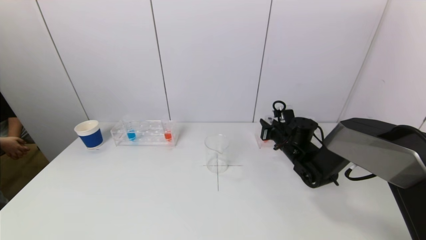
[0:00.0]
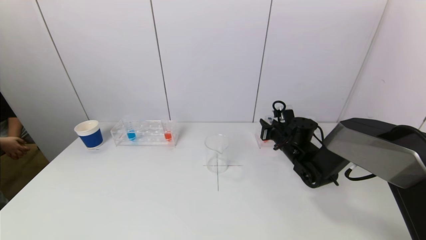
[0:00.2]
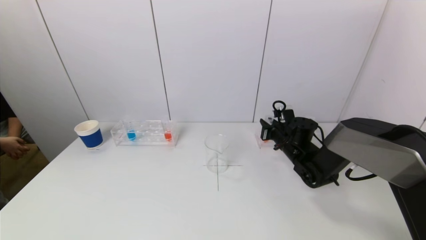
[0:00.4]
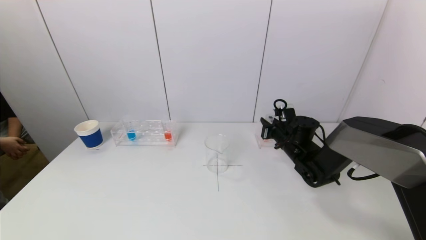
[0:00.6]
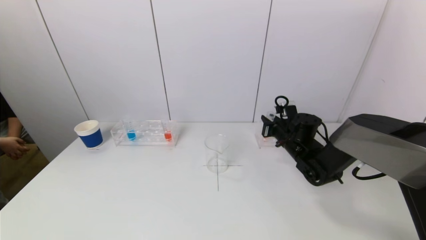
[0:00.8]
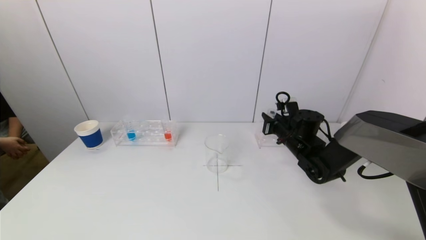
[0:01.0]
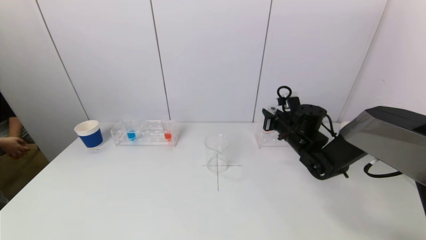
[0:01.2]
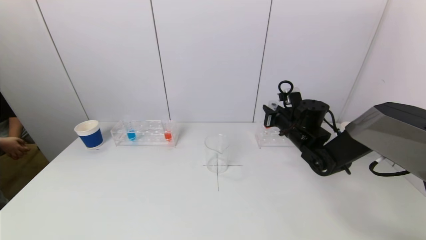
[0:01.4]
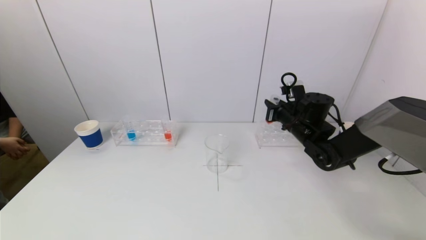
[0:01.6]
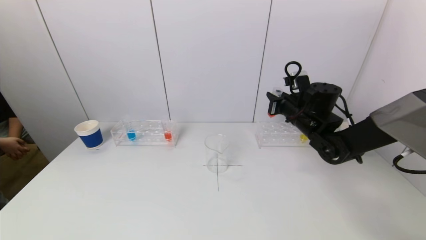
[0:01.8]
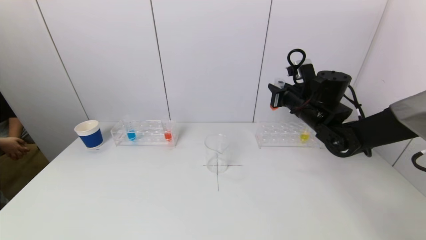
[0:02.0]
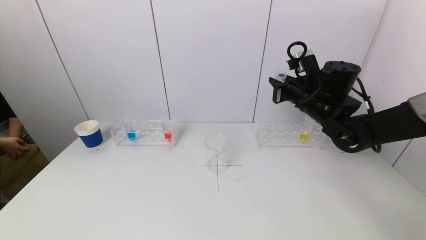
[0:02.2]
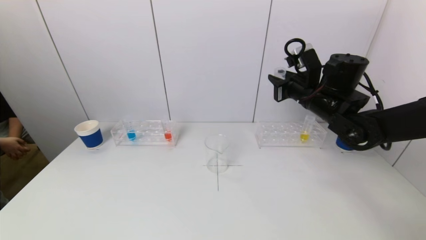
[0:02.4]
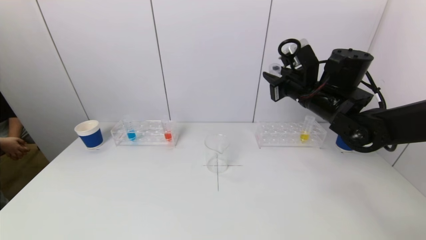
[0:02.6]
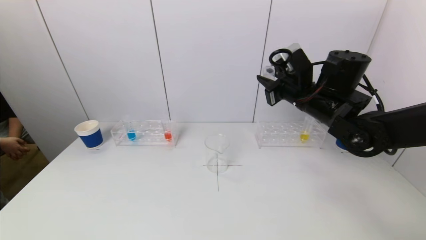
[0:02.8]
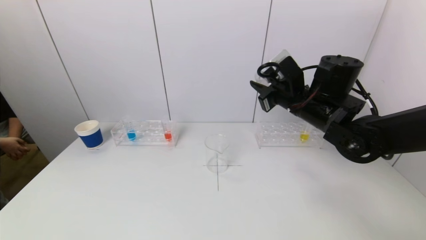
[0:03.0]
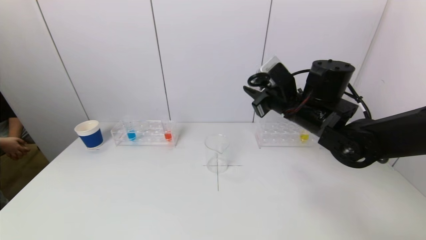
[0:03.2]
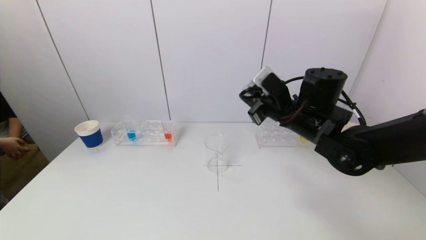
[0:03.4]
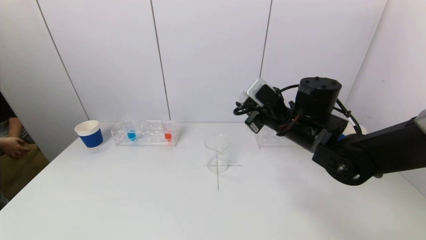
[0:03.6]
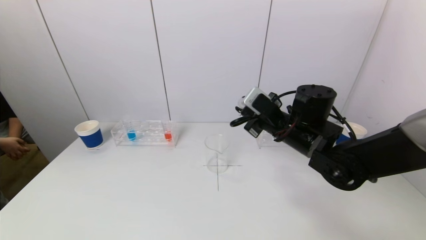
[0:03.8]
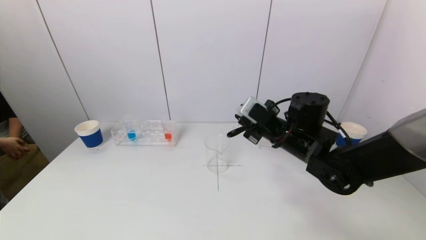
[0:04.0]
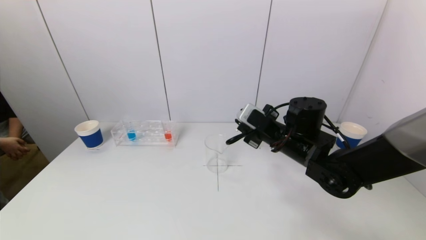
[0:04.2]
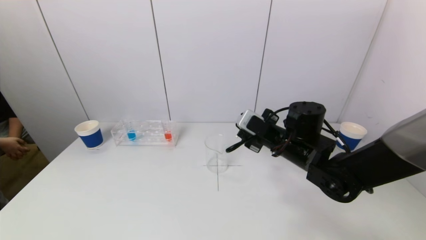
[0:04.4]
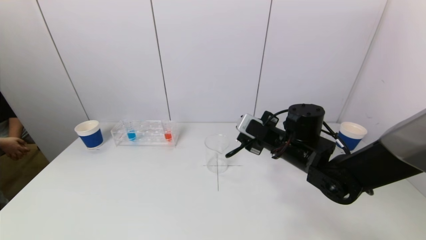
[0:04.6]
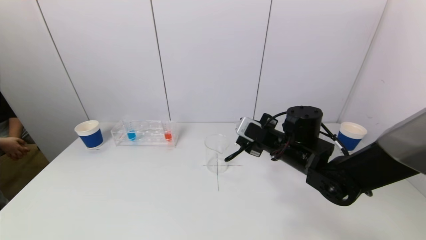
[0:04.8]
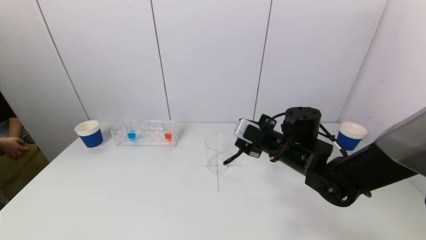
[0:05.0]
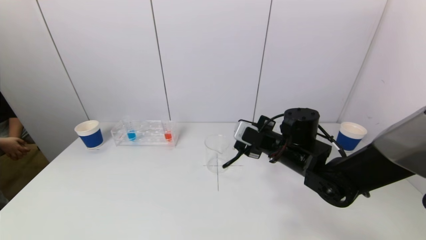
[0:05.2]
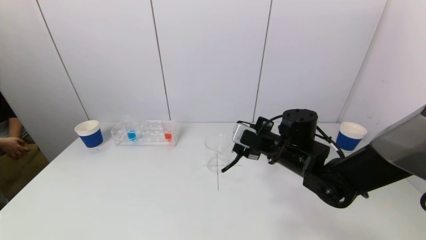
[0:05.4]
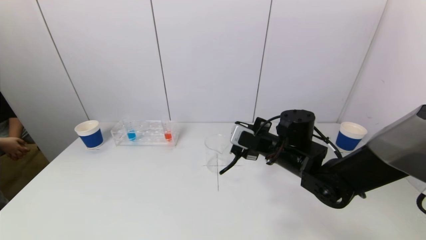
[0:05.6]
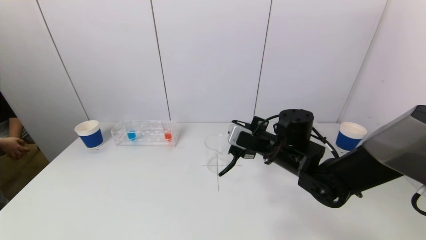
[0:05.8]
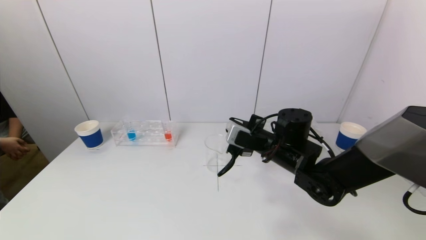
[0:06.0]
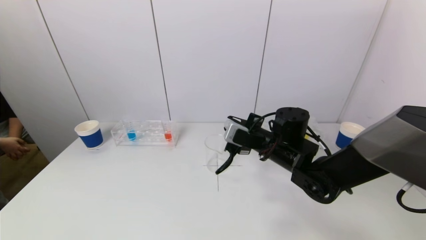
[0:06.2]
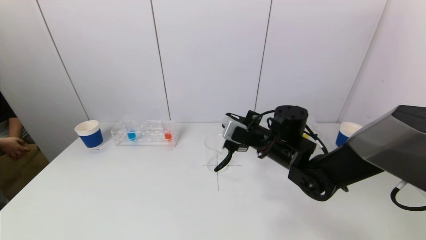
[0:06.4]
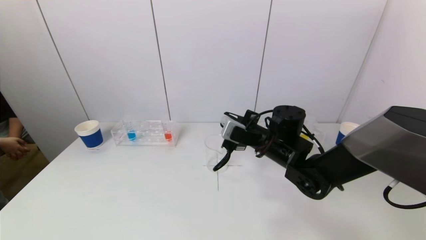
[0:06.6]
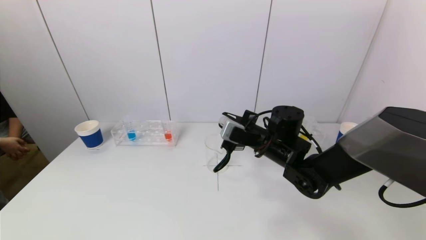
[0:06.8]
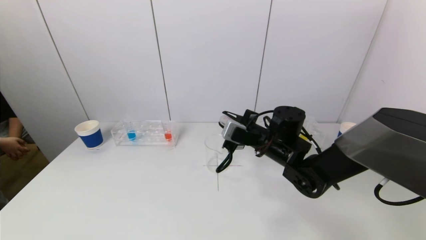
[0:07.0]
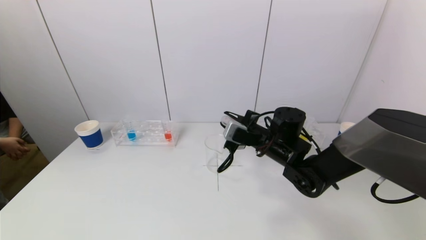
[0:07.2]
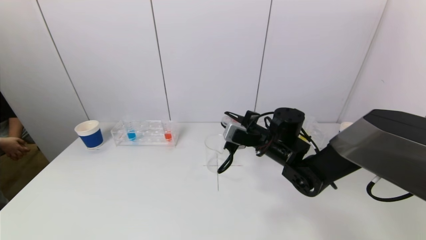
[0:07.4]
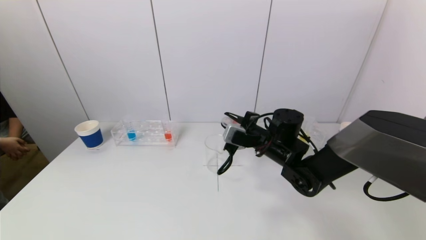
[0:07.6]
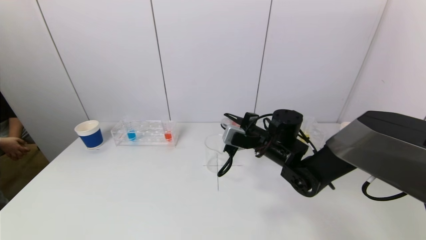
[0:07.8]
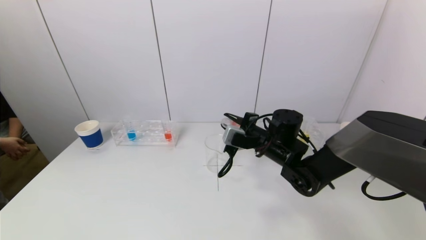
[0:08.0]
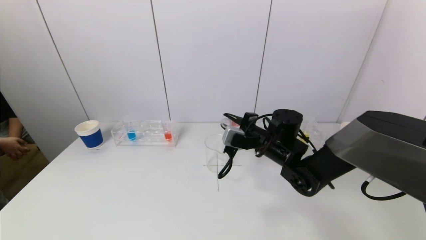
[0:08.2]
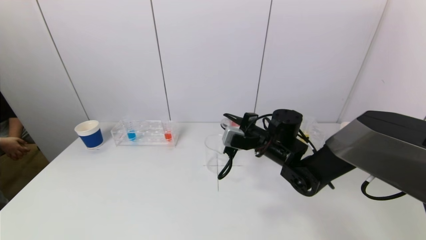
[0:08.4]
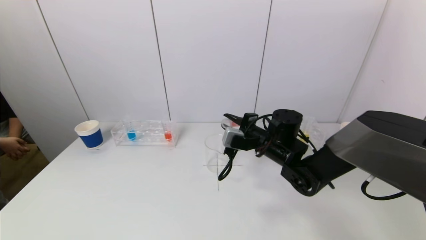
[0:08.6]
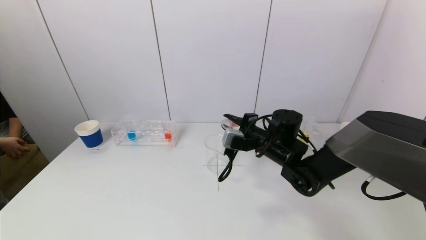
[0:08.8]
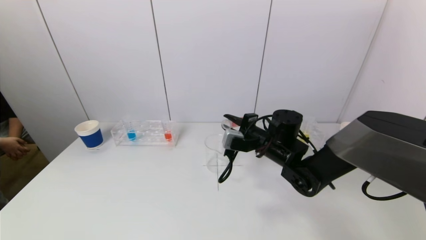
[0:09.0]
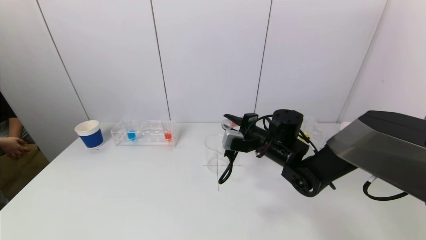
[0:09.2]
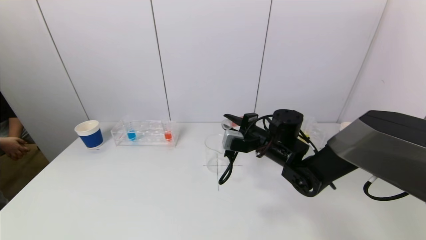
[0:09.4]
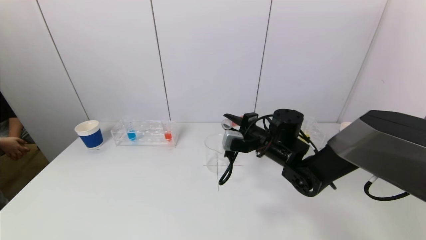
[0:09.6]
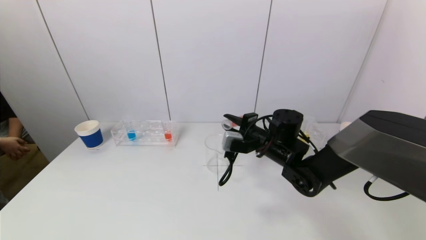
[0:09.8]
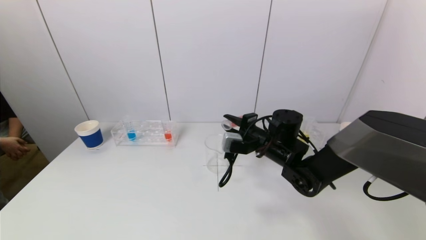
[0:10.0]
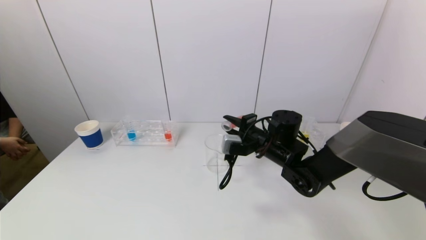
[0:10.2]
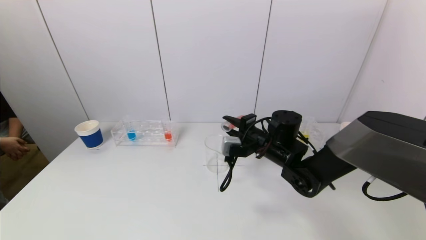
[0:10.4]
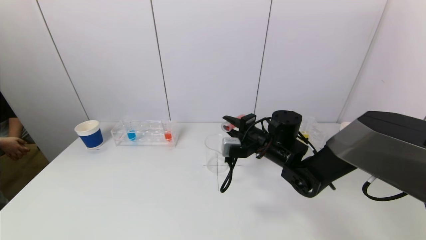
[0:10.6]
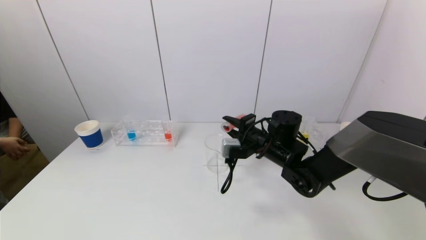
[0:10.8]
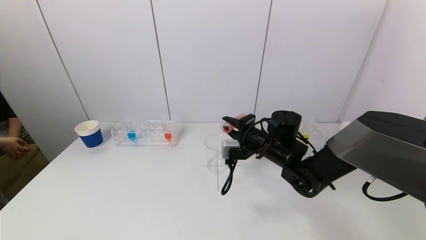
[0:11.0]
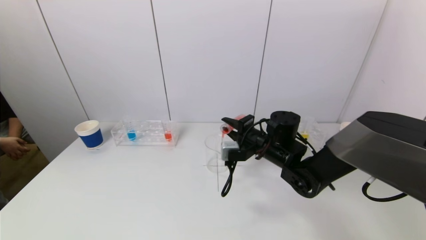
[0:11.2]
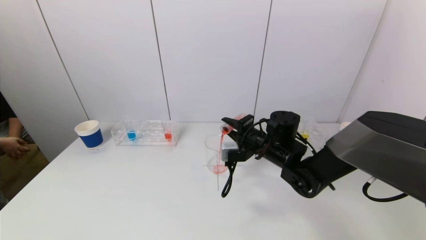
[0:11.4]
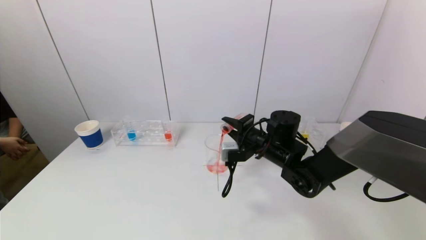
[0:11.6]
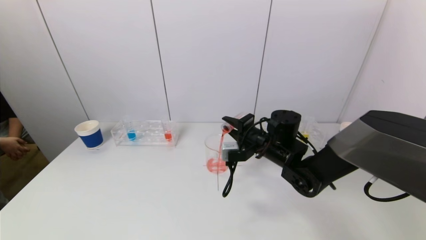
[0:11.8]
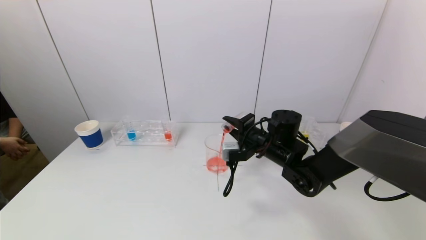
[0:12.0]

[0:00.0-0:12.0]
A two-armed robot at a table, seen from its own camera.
Task of the whole recording: pick up a test tube with pigment on left test tube rack and a test tube with pigment on right test tube rack by grippers and pour them into the beaker.
0:00.0 to 0:01.6: The right gripper heads upward, covering roughly 10 cm.
0:01.6 to 0:03.0: The right gripper shifts some 10 cm upward and backward.
0:03.0 to 0:04.4: The right gripper goes some 10 cm downward.
0:04.4 to 0:07.6: The grippers move only a little.
0:07.6 to 0:10.4: The grippers stay close to where they were, moving slightly.
0:10.4 to 0:12.0: The grippers move only a little.

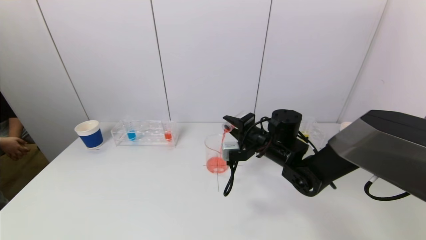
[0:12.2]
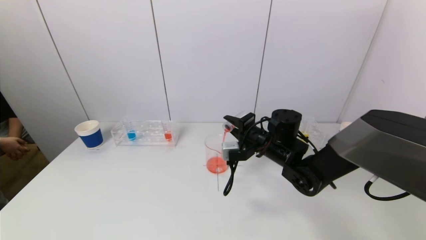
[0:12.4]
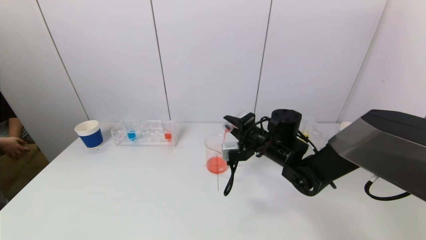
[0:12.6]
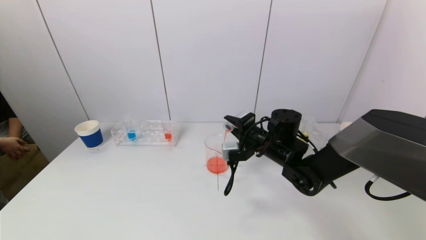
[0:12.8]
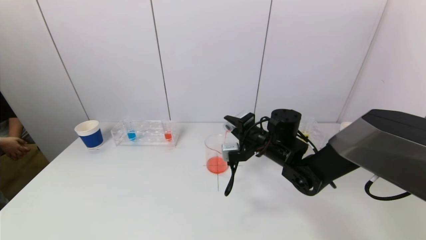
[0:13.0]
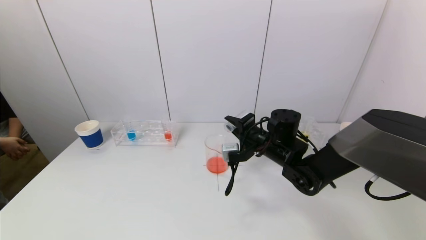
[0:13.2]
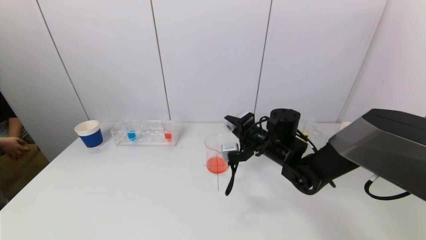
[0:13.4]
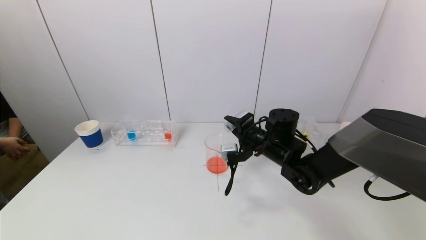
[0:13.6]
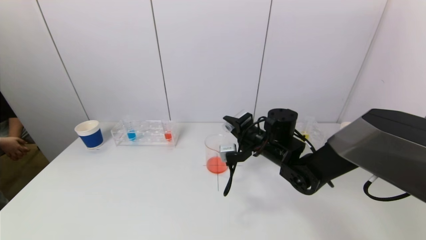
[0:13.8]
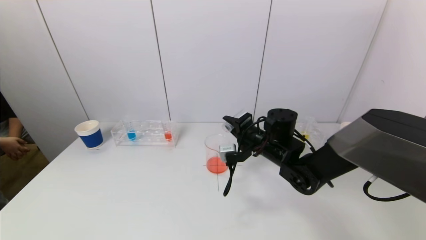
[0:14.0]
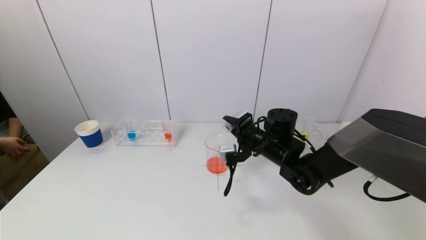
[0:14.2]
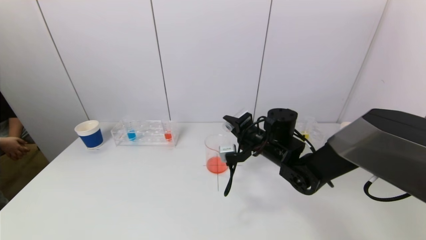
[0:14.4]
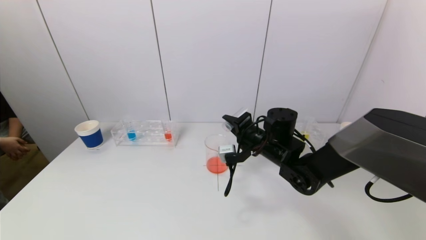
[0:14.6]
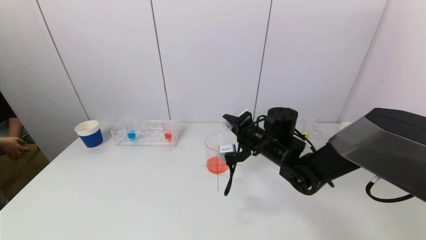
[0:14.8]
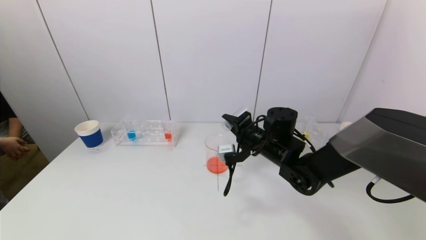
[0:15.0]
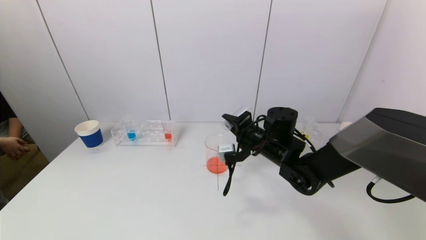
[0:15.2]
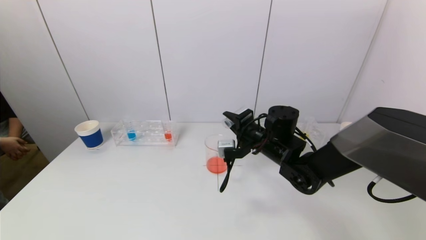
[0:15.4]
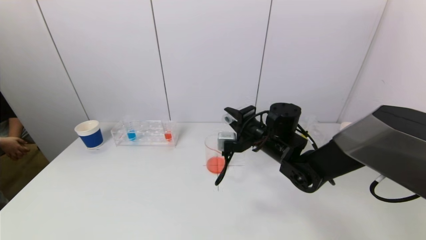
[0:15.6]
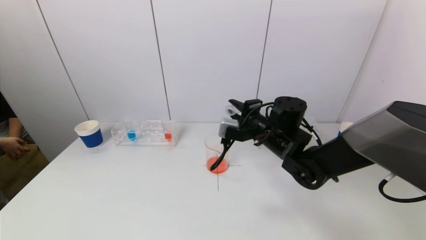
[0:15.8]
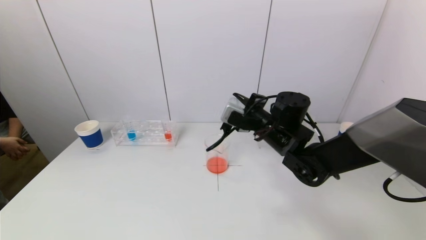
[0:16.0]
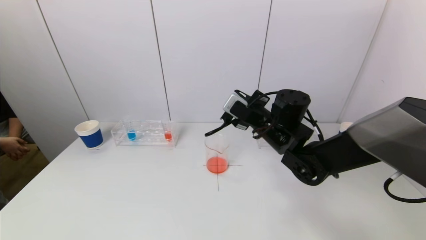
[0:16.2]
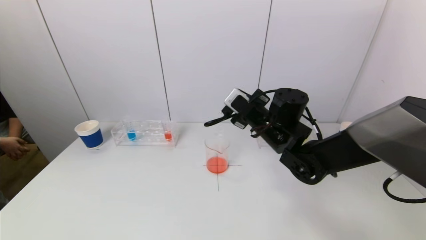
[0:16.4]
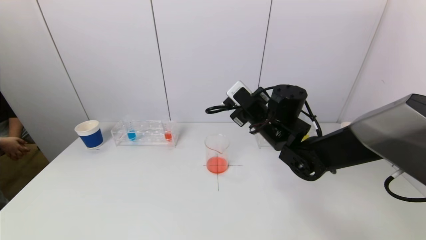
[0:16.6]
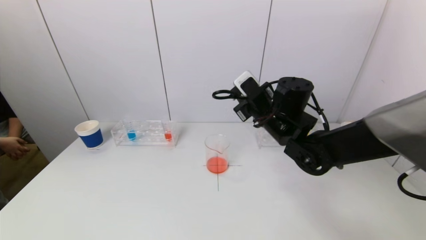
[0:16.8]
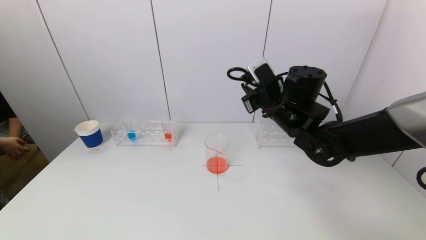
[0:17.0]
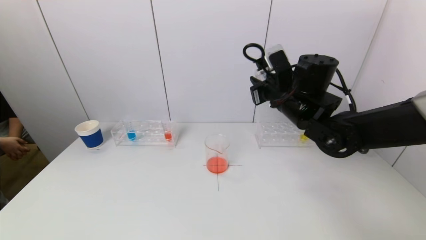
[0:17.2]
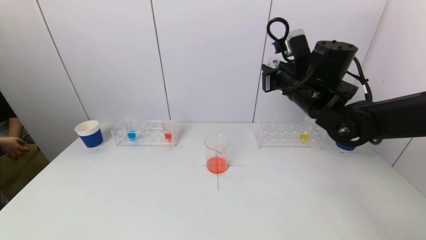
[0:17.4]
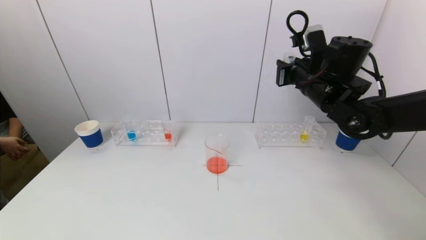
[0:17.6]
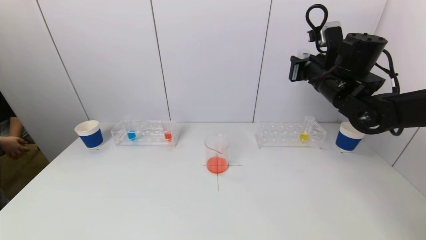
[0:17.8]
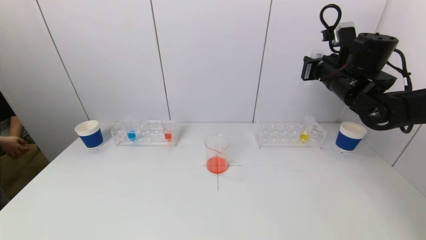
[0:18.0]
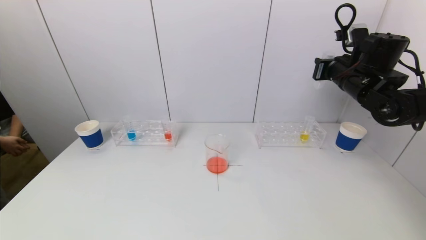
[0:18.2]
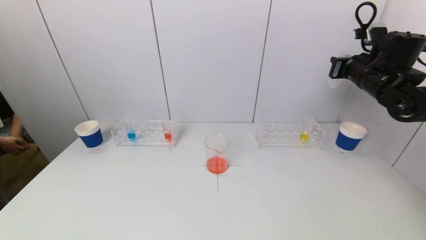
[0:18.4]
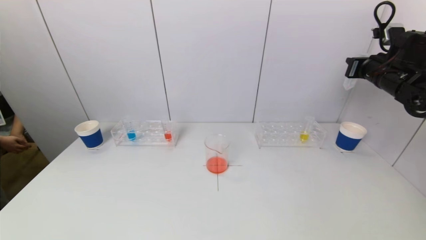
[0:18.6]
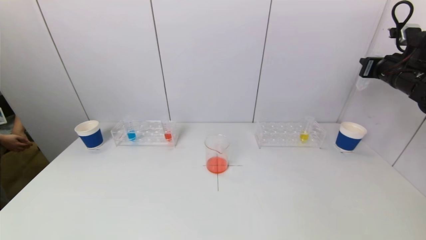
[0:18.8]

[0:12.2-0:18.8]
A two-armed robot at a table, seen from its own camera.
Task of the whole recording: pick up a test tube with pigment on left test tube rack and a test tube with pigment on right test tube rack by grippers and pour them into the beaker.
Step, 0:12.2 to 0:15.2: Pour the red reagent into the graduated cylinder with the right gripper.
0:12.2 to 0:13.8: The grippers move only a little.
0:13.8 to 0:15.4: The two grippers keep their place.
0:15.4 to 0:17.2: The right gripper shifts approximately 10 cm upward.
0:17.2 to 0:18.8: The right gripper goes about 25 cm to the right.
